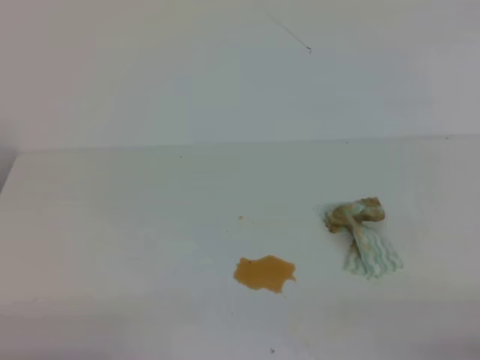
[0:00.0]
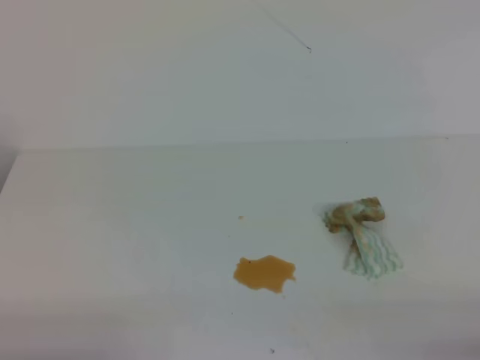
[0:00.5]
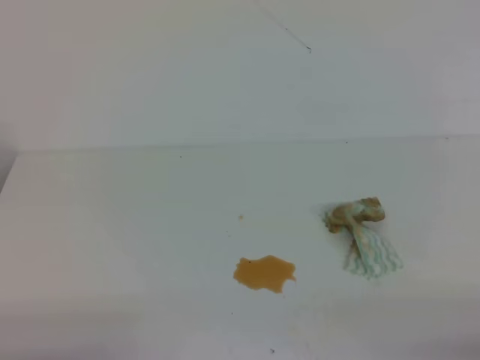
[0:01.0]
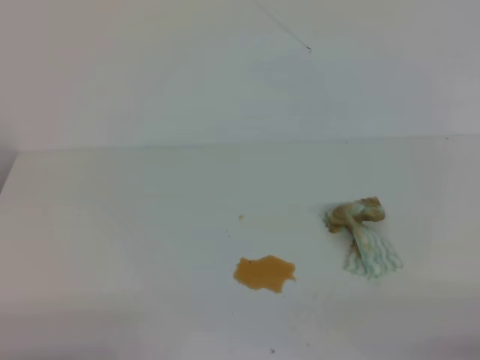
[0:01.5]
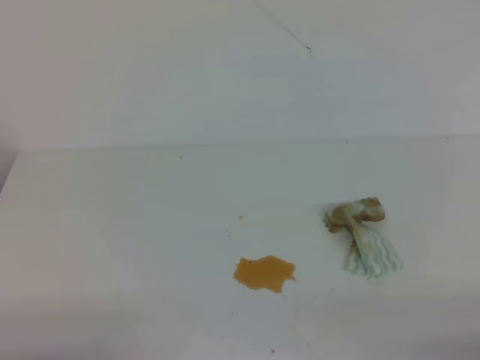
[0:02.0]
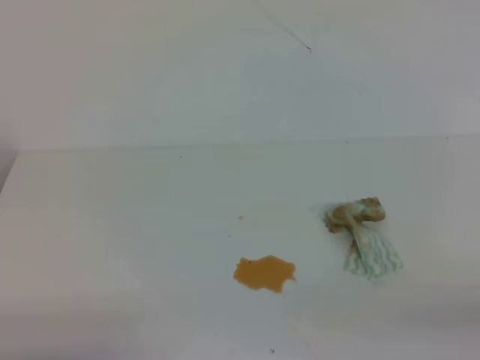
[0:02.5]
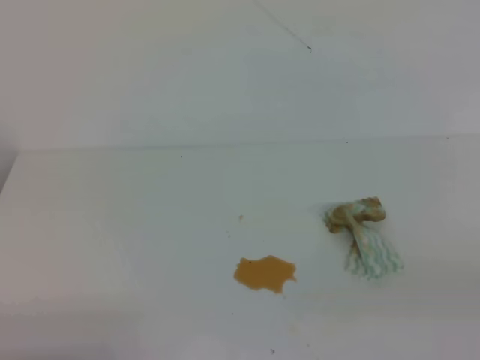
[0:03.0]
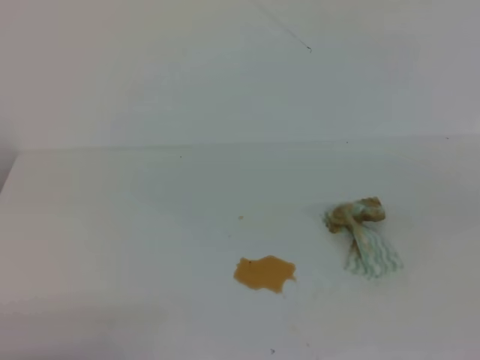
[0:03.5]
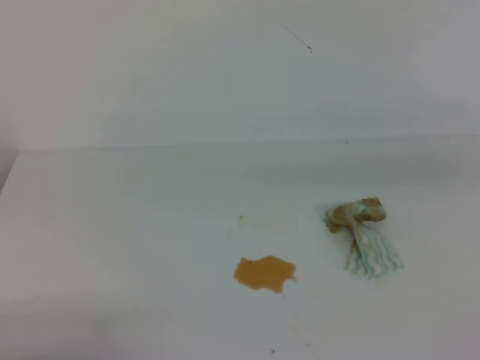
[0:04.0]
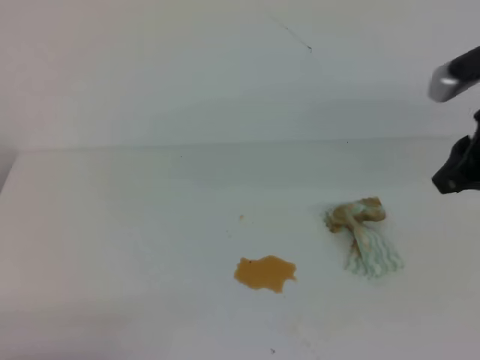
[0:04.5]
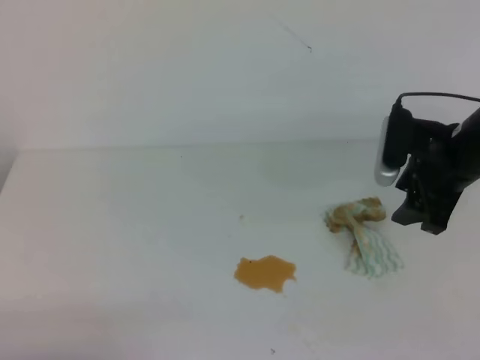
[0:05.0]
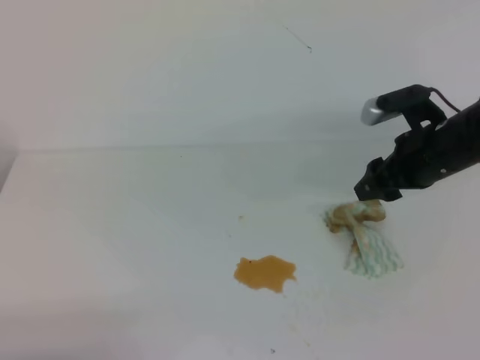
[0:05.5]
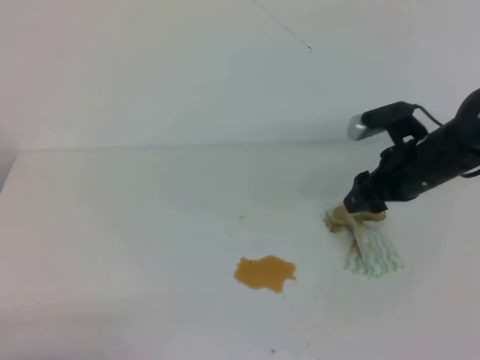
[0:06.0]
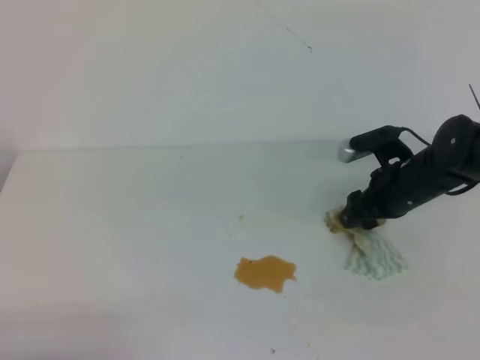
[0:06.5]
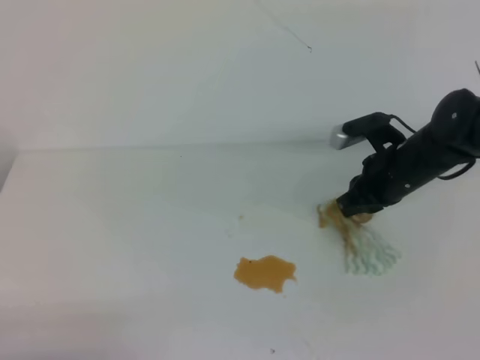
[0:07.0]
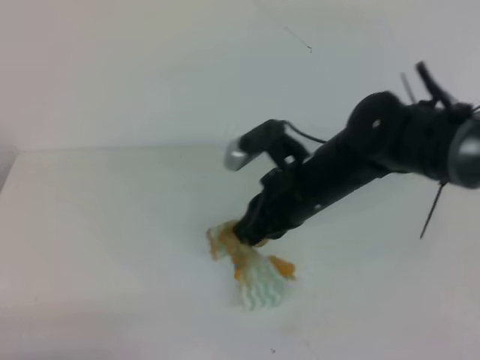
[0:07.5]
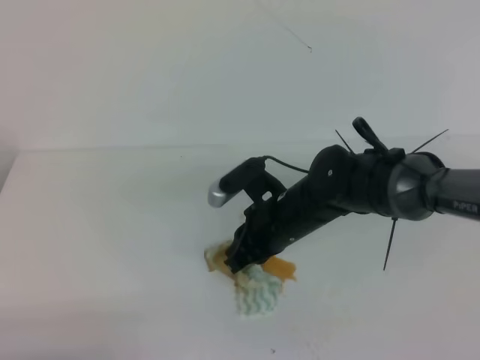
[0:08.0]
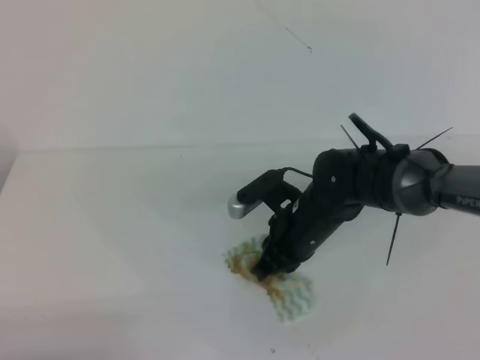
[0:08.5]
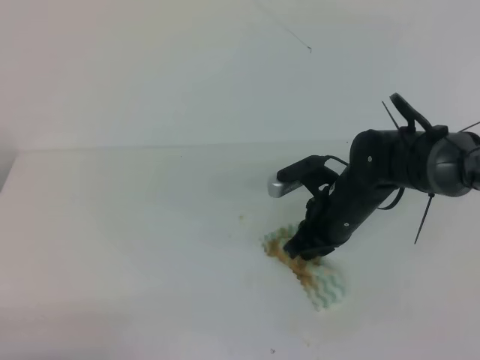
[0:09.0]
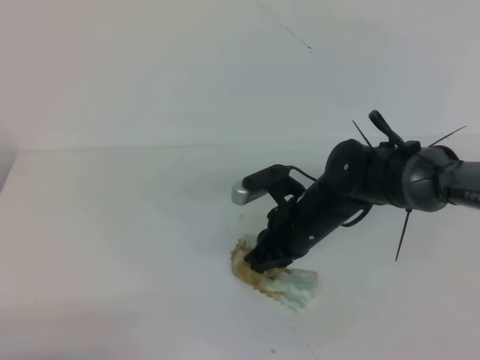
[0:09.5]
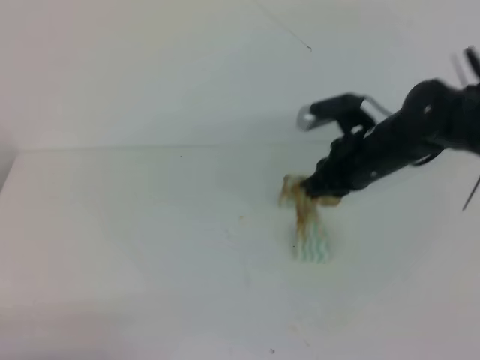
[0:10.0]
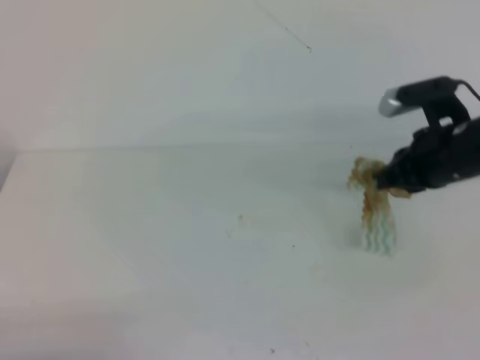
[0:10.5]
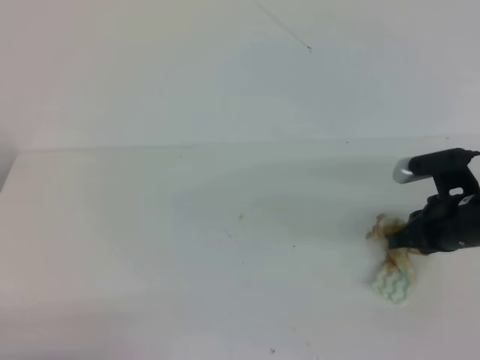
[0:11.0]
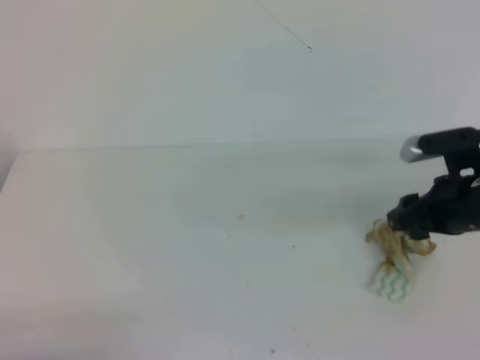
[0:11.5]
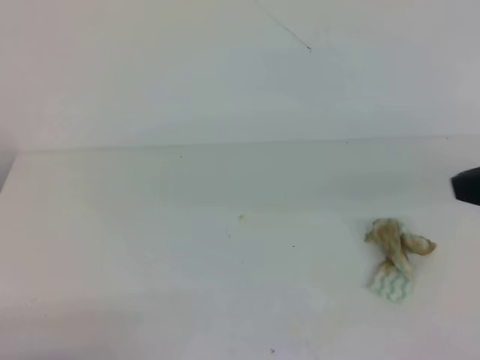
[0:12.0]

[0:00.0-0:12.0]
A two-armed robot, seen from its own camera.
0:00.0 to 0:02.0: Both grippers stay put.
0:04.0 to 0:06.0: The right gripper moves forward, downward and to the left, some 25 cm, and opens its fingers.
0:06.0 to 0:08.0: The right gripper is displaced to the left by about 15 cm, and closes.
0:08.0 to 0:10.0: The right gripper is displaced to the right by approximately 10 cm.
0:10.0 to 0:12.0: The right gripper goes some 25 cm backward, upward and to the right, and opens, then closes again.
